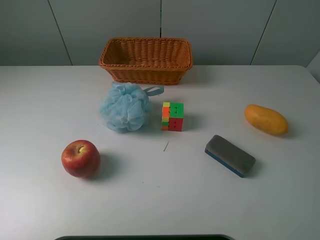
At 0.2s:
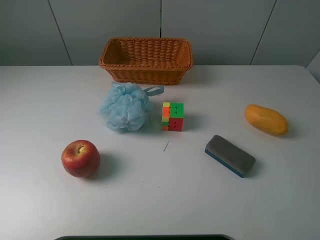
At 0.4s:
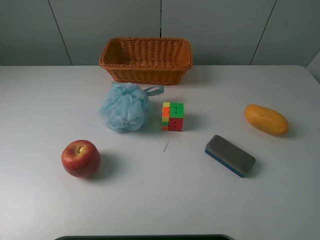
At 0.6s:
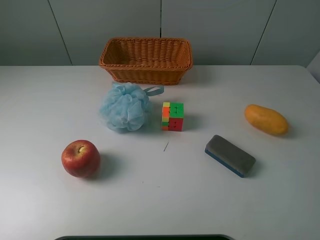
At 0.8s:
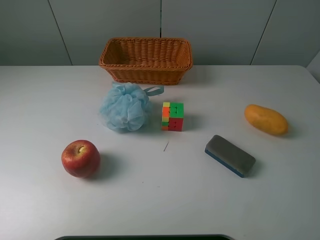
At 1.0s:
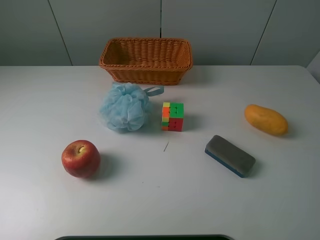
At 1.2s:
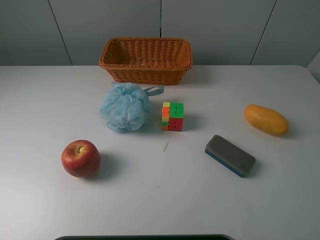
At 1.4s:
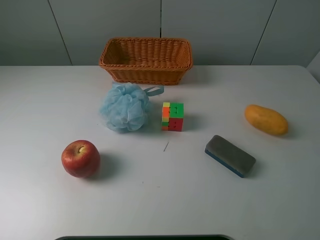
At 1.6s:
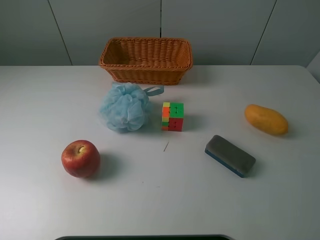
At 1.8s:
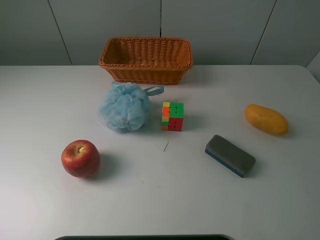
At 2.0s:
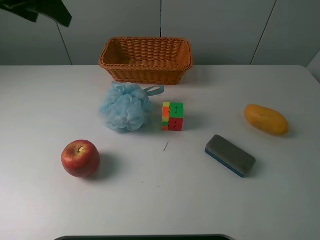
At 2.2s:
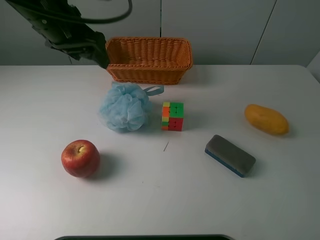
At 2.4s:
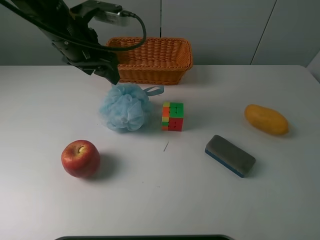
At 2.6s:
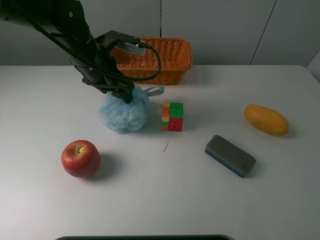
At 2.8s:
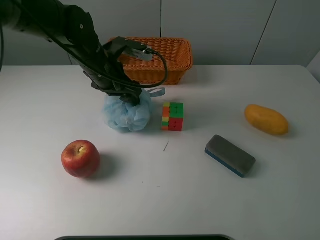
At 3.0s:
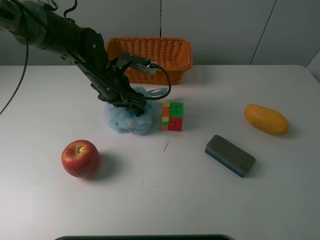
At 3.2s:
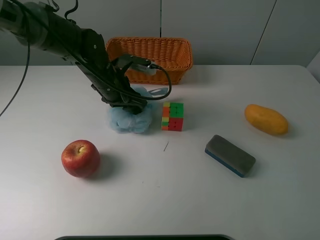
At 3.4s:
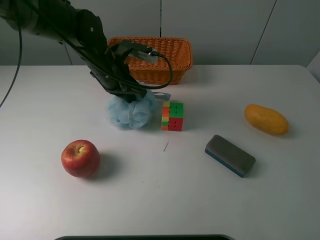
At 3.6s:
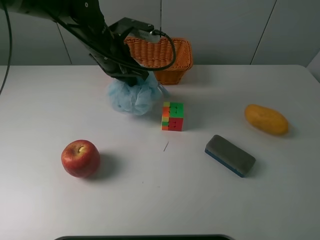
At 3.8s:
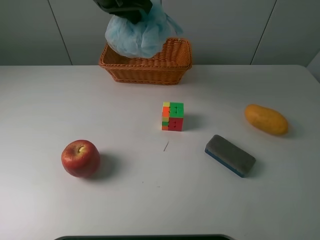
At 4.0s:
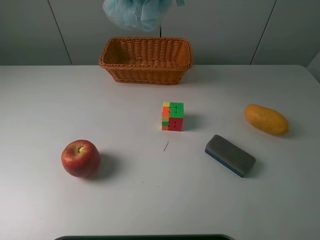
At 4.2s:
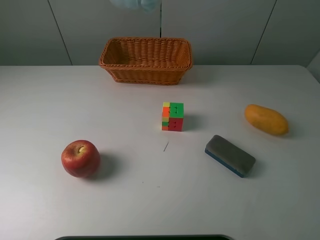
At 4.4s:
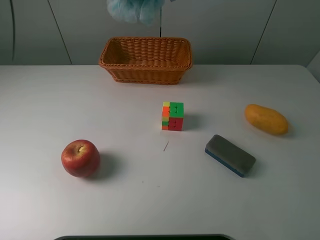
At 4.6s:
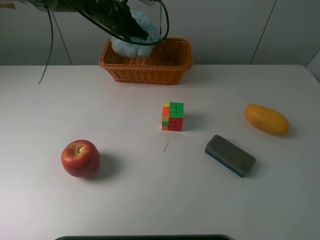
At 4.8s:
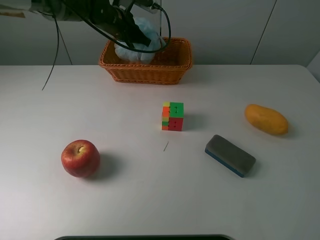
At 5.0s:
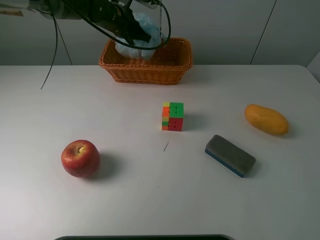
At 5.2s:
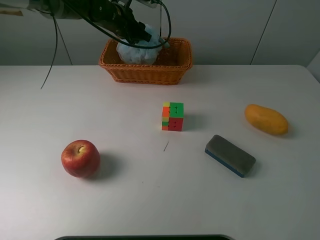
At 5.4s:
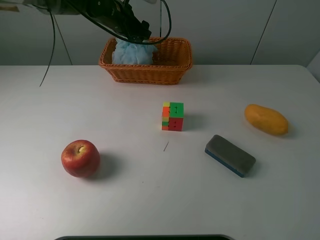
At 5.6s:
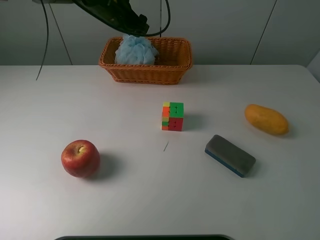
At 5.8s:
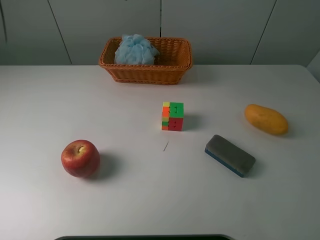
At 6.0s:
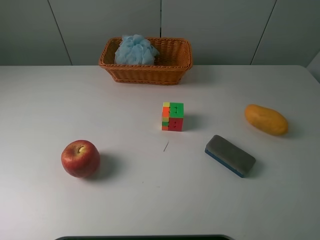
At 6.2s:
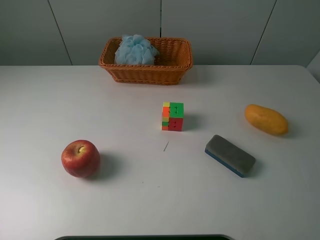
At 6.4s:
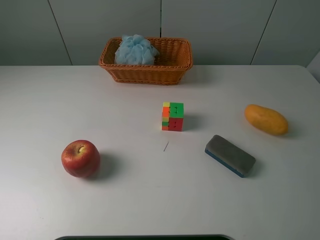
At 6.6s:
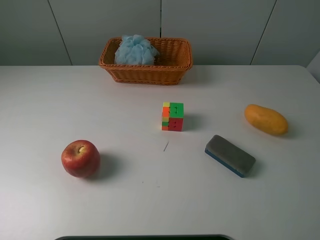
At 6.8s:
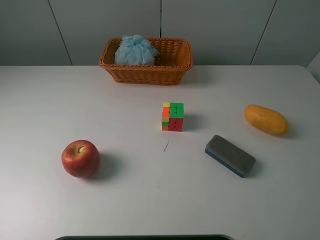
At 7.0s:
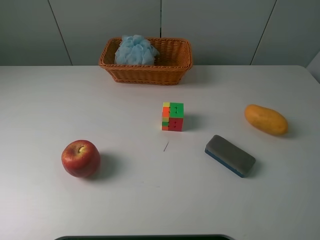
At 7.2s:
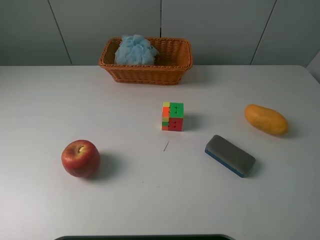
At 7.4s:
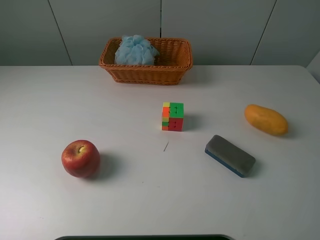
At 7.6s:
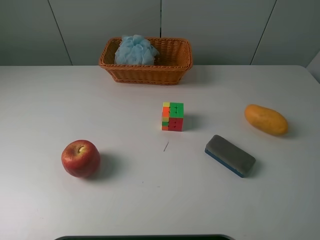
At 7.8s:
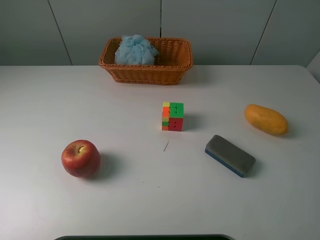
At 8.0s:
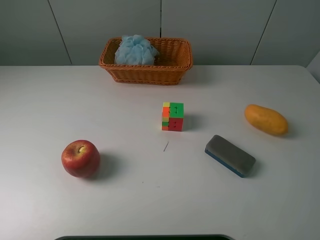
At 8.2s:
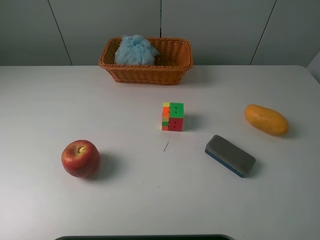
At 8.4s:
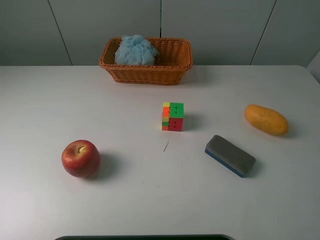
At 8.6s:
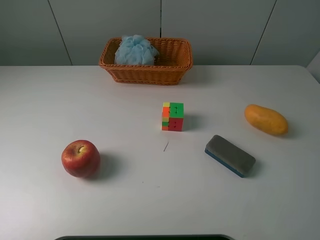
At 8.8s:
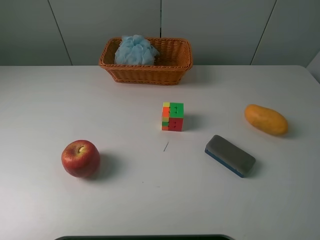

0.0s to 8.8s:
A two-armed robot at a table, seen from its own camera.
Task of the whole recording: use a picker to grab the item closest to the cube and place it in the basket.
Step, 0.0s to 3.2s: Grasp the Shower puff with the left gripper.
Step, 3.4s to 5.6s: Place the Shower puff into the basket with the left gripper.
1.4s to 3.0s: The left gripper moves downward, forward and to the right, about 50 cm.
3.0s to 4.4s: The left gripper shifts some 20 cm upward and forward, and closes up.
4.4s to 5.8s: The left gripper shifts about 5 cm upward, and opens.

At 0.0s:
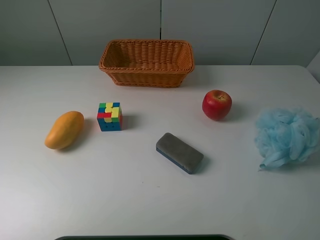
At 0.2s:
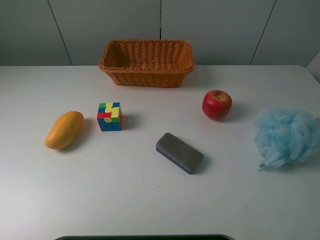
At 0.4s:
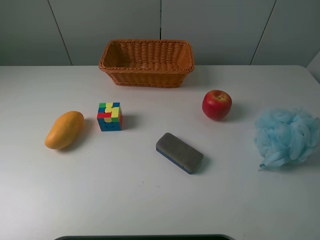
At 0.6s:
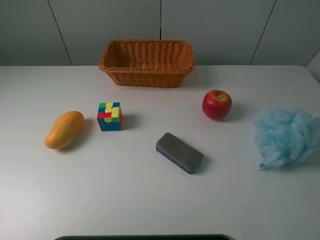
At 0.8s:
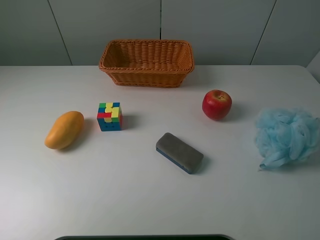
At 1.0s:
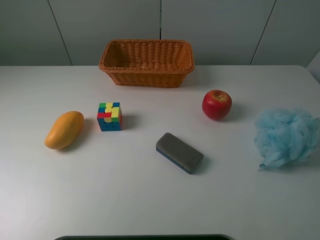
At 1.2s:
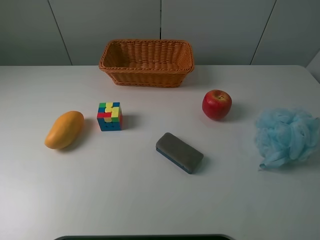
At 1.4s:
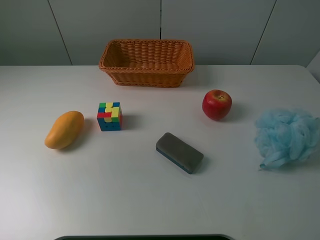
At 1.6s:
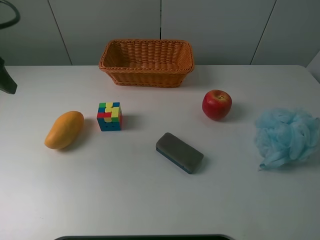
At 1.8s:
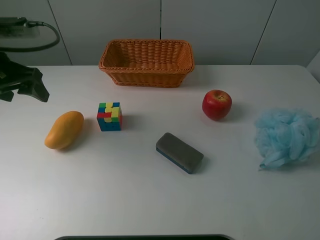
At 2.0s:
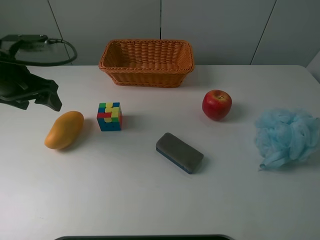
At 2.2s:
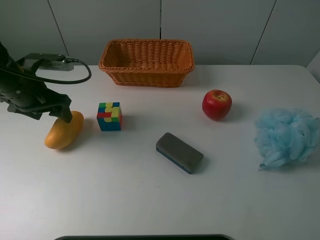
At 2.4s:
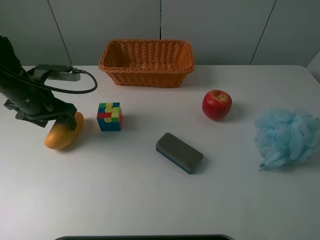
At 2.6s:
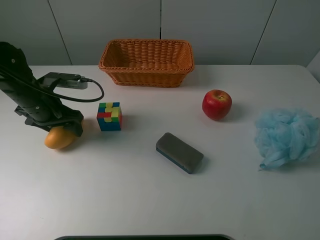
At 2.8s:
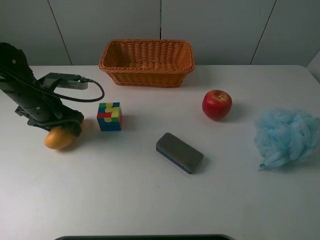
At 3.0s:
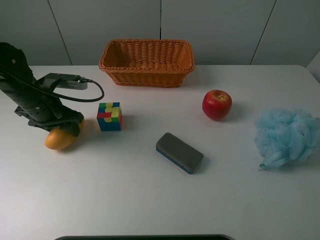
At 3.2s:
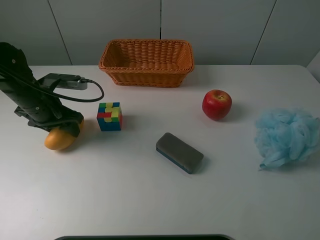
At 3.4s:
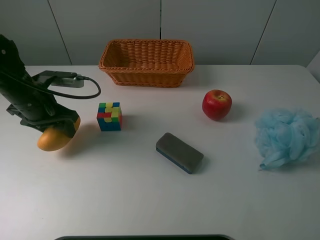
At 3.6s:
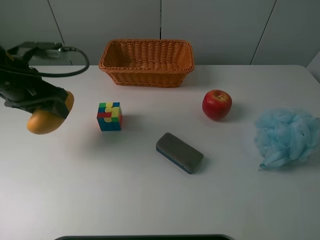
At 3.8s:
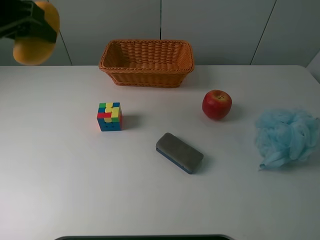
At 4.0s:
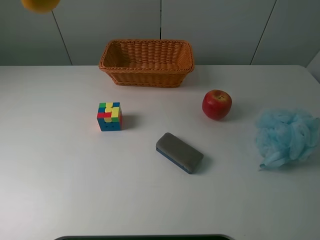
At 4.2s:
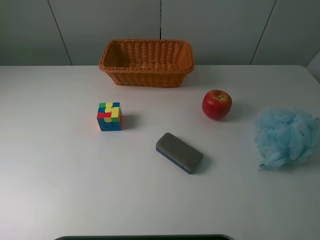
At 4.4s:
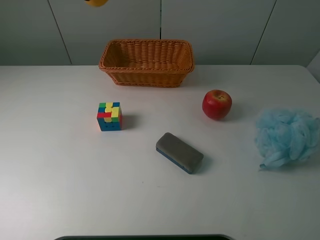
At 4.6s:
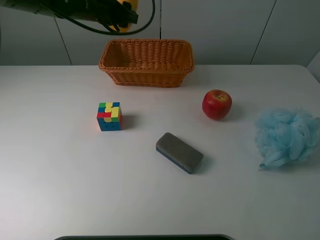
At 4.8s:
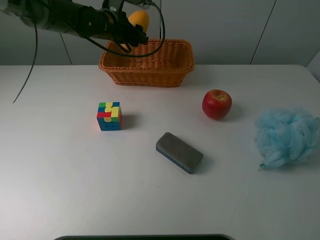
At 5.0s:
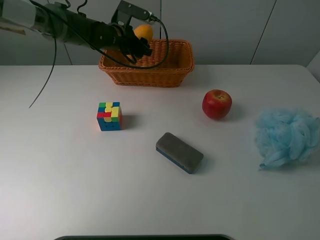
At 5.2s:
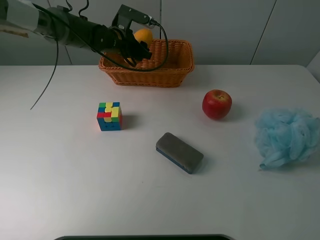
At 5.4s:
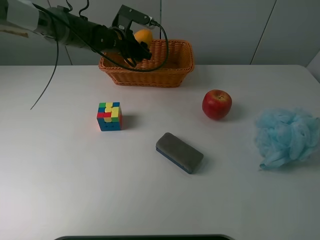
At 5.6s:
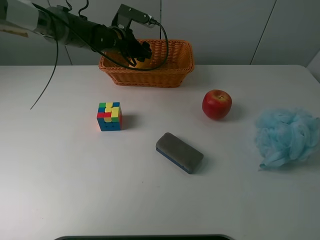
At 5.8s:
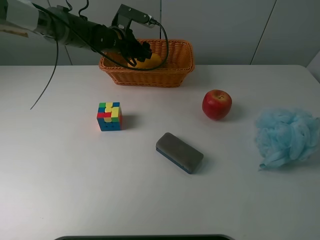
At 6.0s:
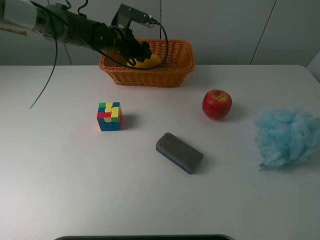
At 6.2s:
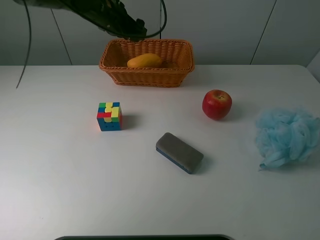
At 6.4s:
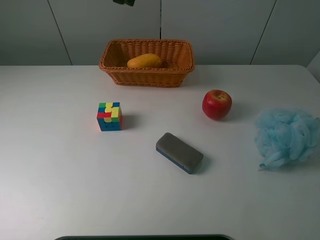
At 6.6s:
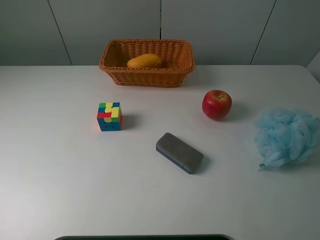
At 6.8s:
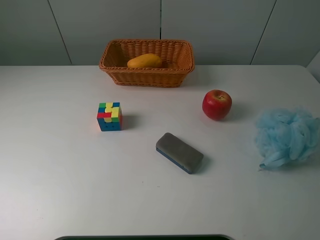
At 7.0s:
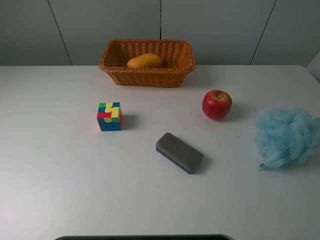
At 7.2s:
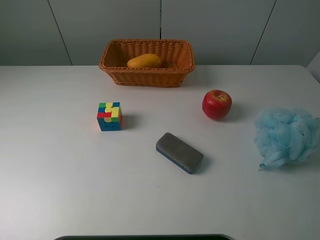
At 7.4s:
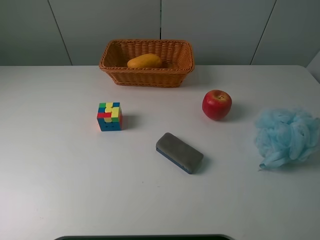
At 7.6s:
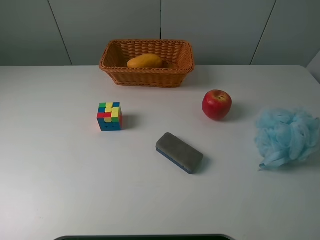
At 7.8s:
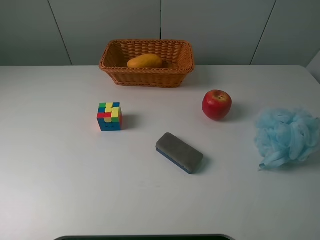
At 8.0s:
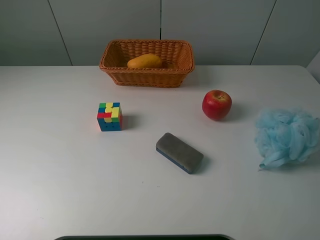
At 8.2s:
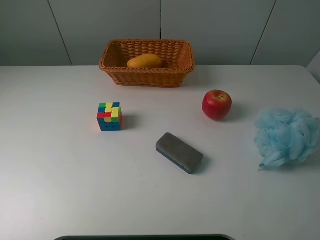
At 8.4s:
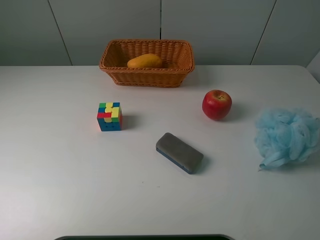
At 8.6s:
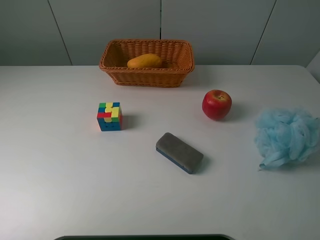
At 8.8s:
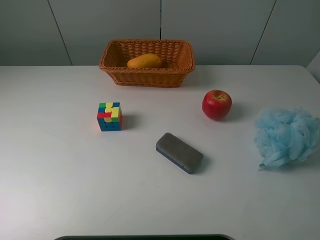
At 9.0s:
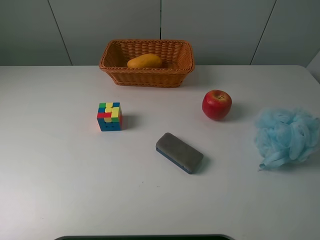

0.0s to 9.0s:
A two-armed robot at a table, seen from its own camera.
Task of the whole recording: use a picker to grab the item closest to the cube and place it in the basket.
Step, 0.0s to 2.8s: Grasp the mango with the left gripper.
Step, 3.0s to 5.8s: Place the mango into the basket with the left gripper.
0.0s to 1.6s: The left gripper goes roughly 25 cm forward.
1.6s to 3.0s: The left gripper goes roughly 15 cm downward and to the right, and closes its fingers.
3.0s to 4.4s: The left gripper is displaced upward, forward and to the right by approximately 25 cm.
4.4s to 6.0s: The left gripper heads downward, forward and to the right, covering approximately 15 cm, and opens up.
6.0s to 7.6s: The left gripper heads backward, upward and to the left, covering some 60 cm.
